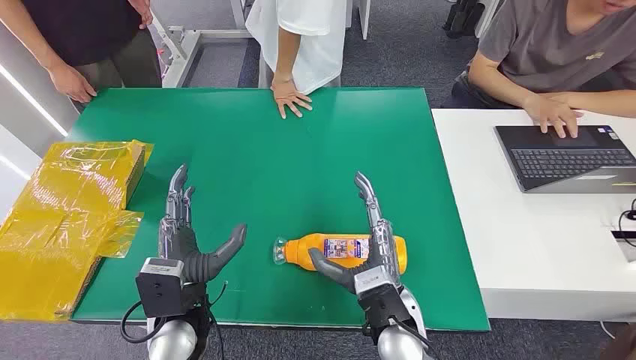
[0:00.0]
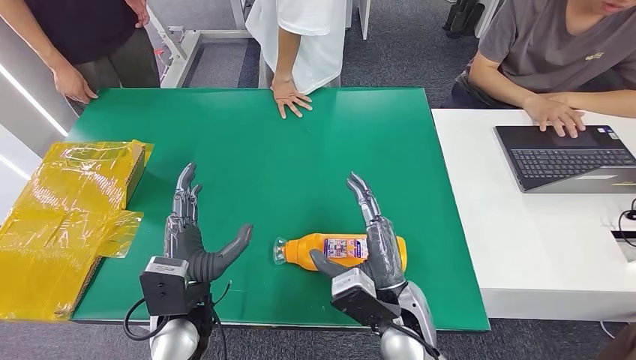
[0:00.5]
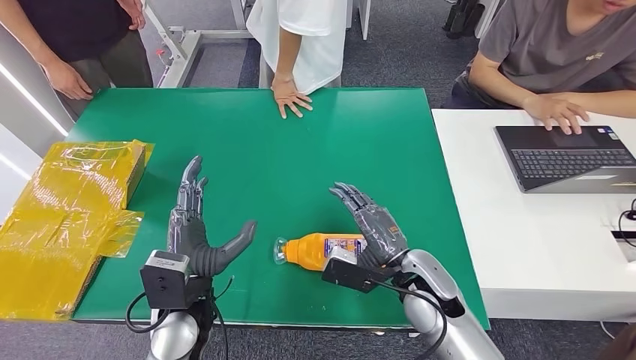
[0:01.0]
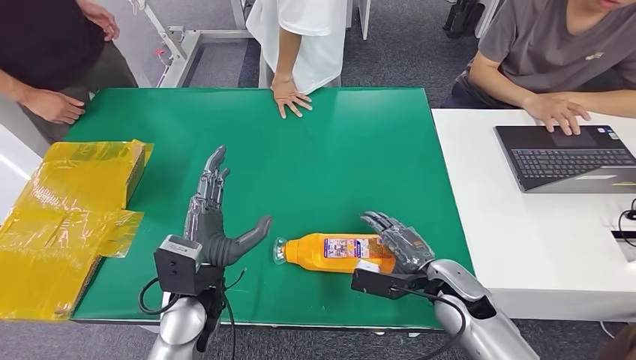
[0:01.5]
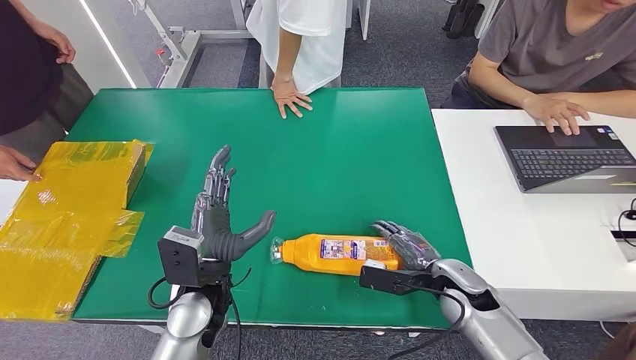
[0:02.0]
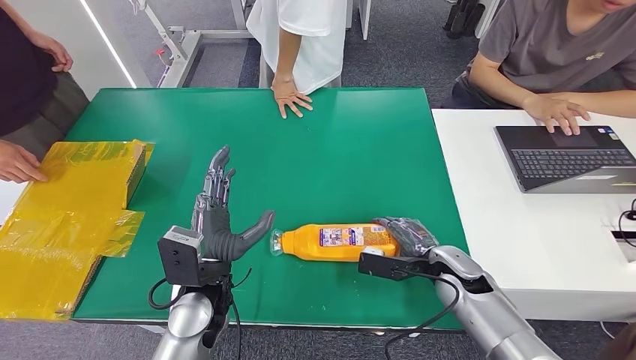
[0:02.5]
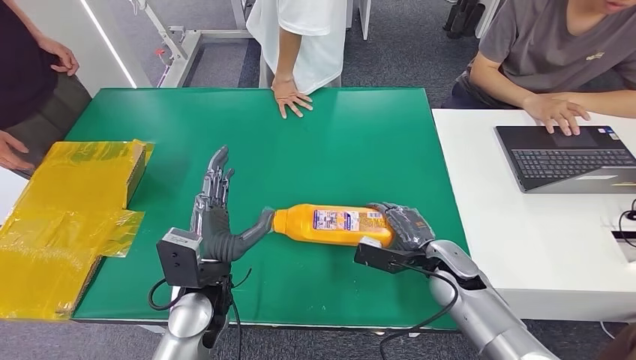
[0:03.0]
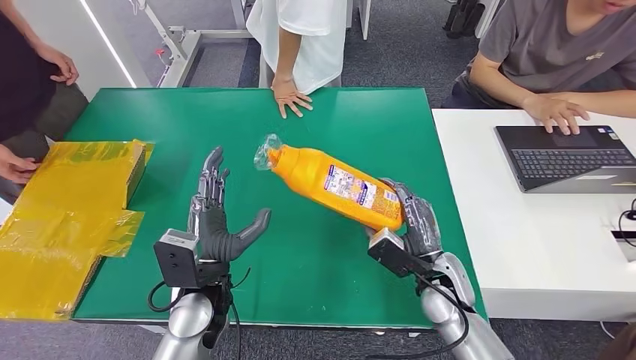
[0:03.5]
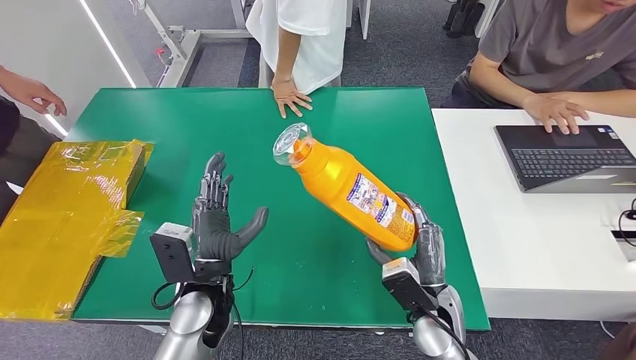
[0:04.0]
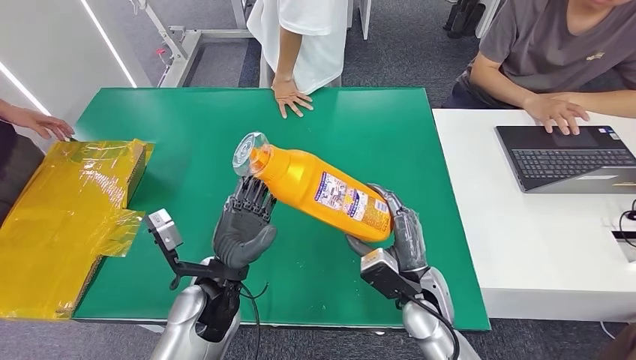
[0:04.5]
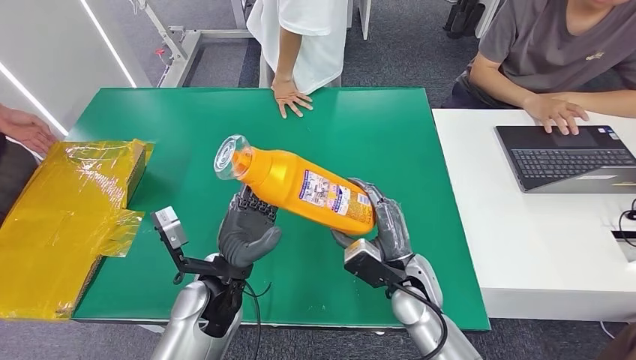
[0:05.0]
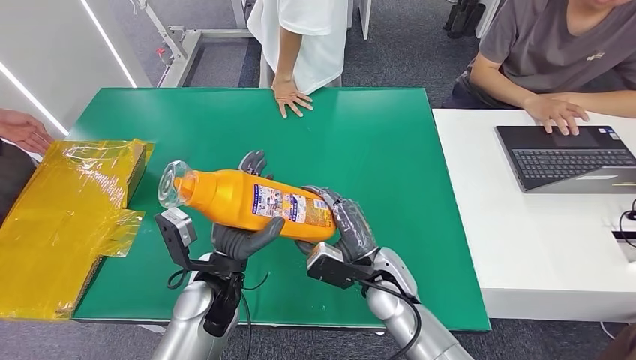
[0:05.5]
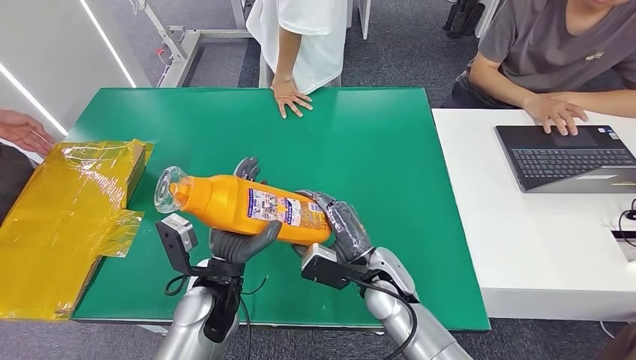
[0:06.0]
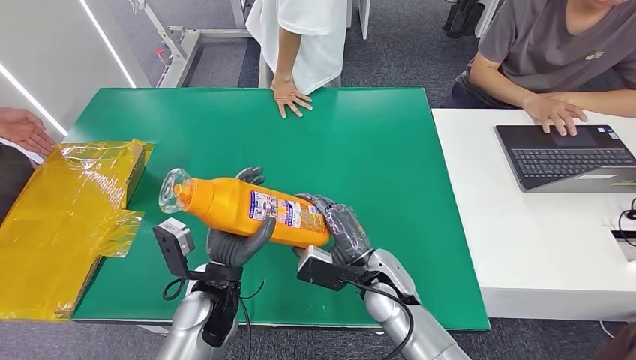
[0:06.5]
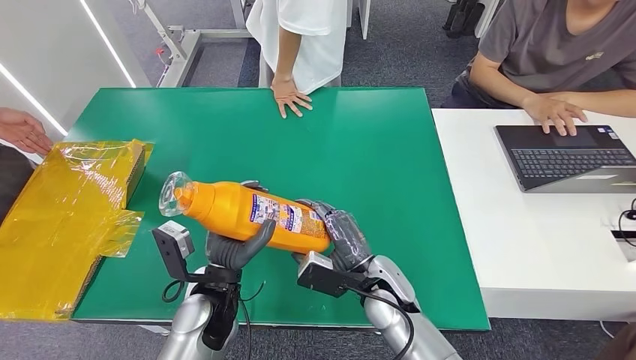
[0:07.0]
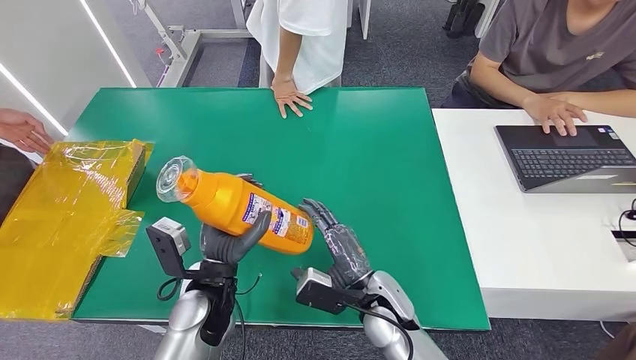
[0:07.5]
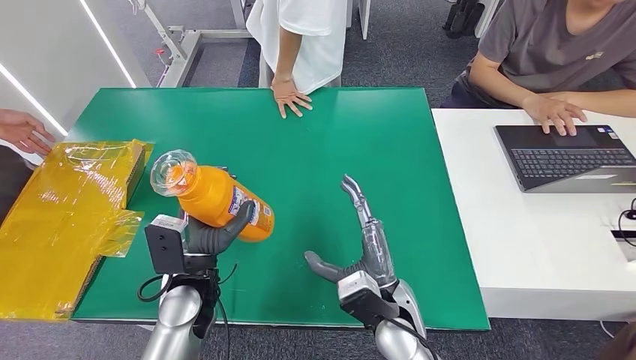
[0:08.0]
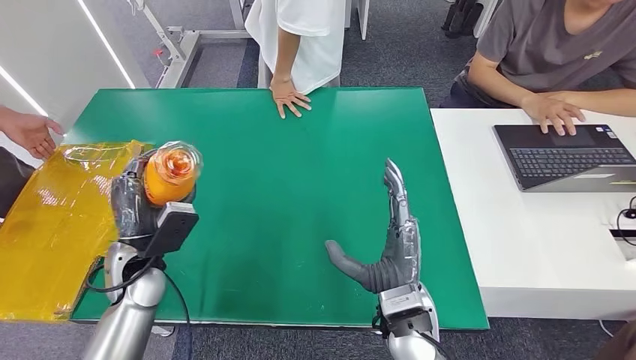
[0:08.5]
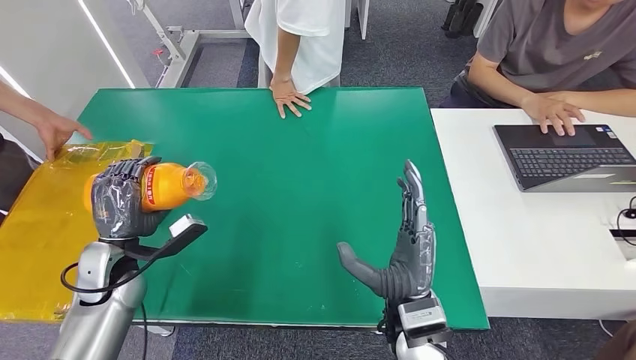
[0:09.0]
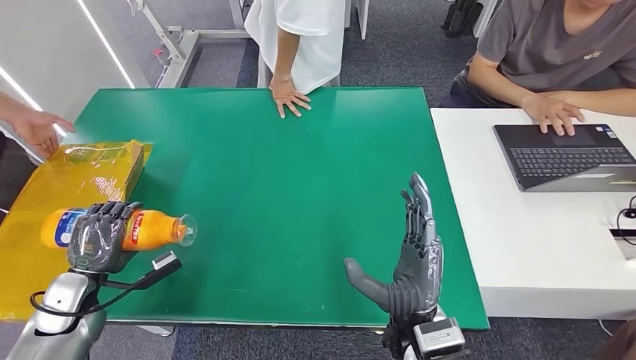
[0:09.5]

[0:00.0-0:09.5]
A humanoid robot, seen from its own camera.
Step, 0:00.0 to 0:04.5: Pick up the bottle from the table.
0:02.0 to 0:04.0: The right hand heads to the left, covering approximately 5 cm.
0:04.0 to 0:05.5: The right hand travels to the left by some 10 cm.
0:05.5 to 0:07.5: There are only small adjustments of the hands.

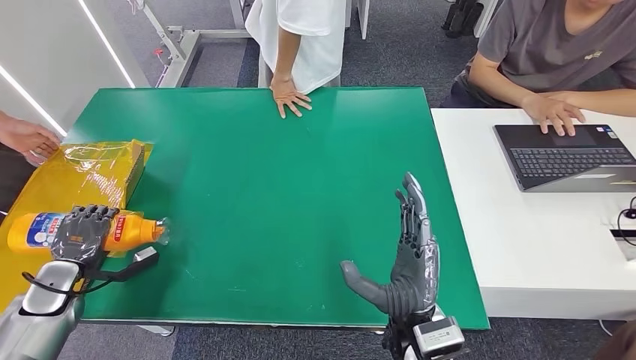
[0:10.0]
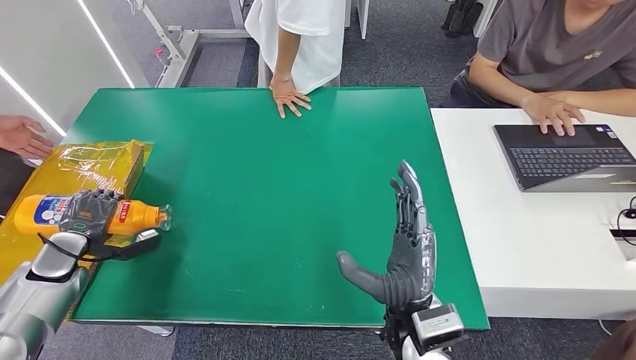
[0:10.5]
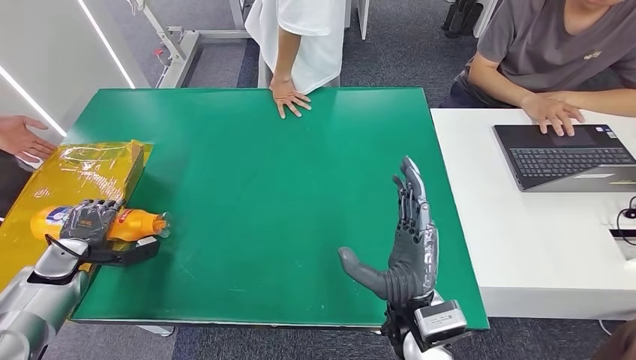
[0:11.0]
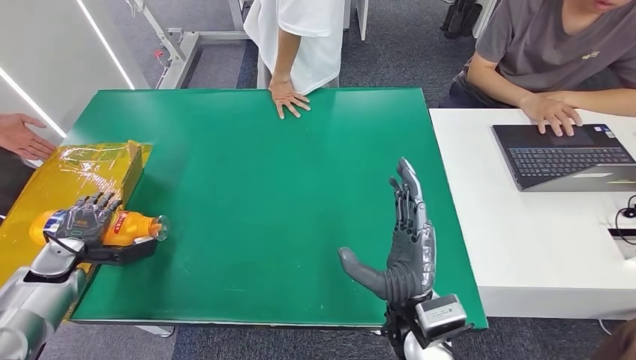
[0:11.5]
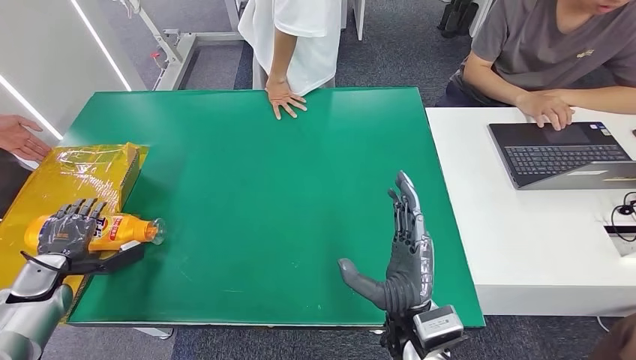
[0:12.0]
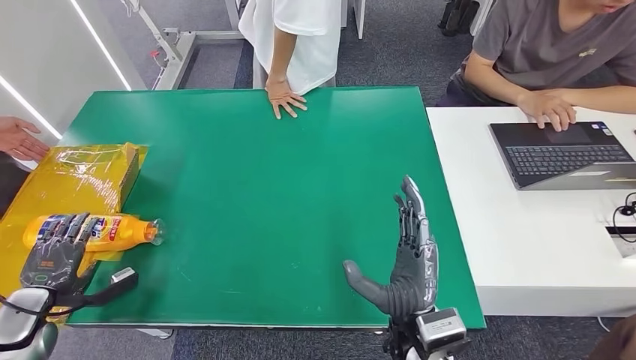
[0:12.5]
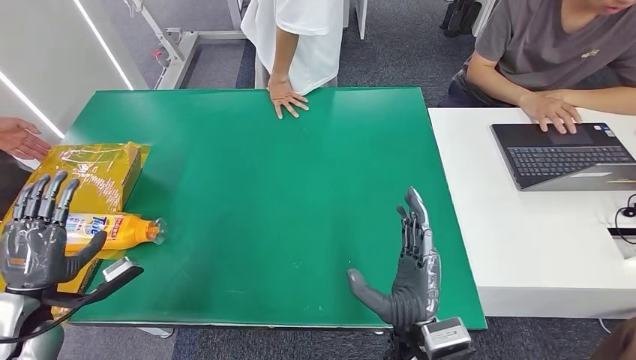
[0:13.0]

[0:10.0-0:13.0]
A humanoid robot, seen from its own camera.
Step, 0:10.0 to 0:13.0: Turn the bottle to the front side.
0:11.5 to 0:13.0: The left hand goes about 15 cm backward, upward and to the right.
